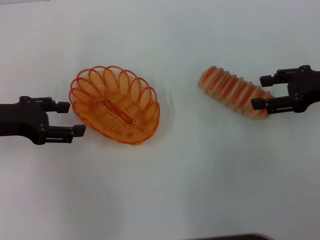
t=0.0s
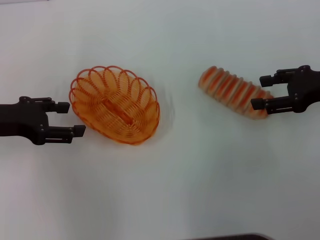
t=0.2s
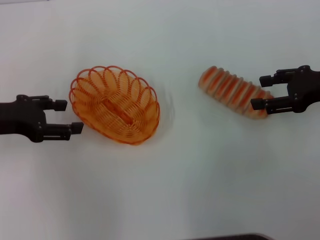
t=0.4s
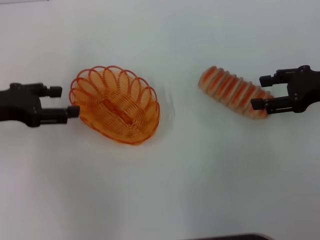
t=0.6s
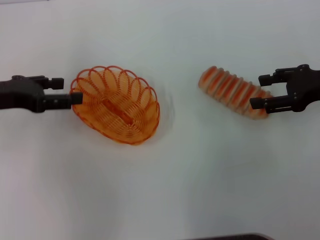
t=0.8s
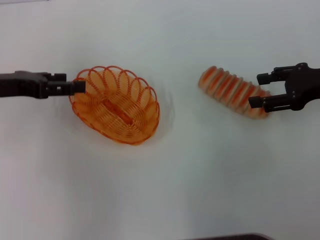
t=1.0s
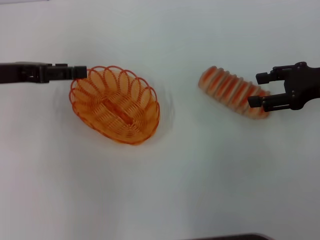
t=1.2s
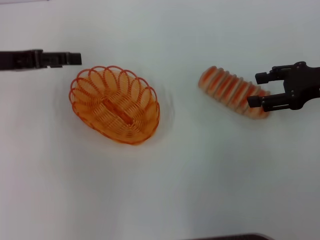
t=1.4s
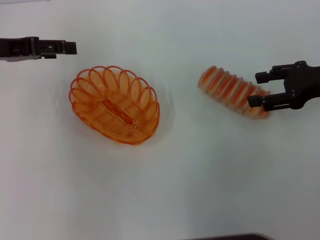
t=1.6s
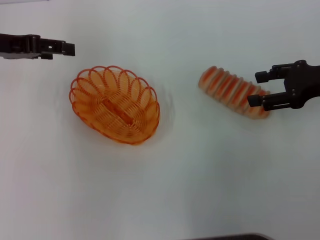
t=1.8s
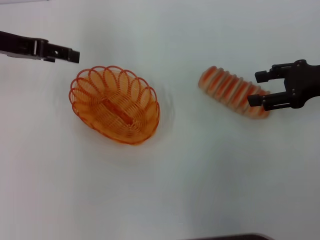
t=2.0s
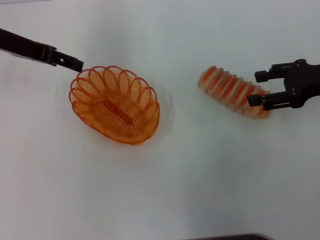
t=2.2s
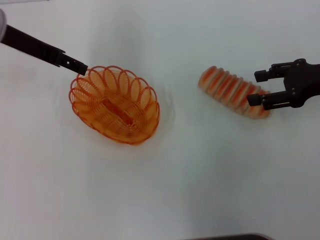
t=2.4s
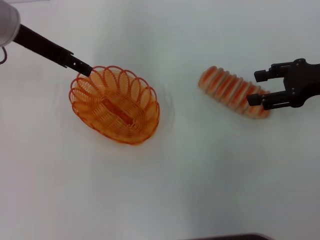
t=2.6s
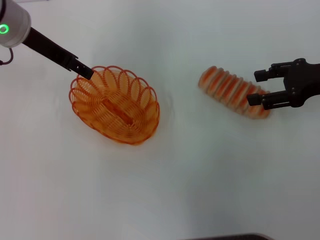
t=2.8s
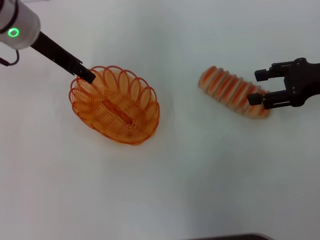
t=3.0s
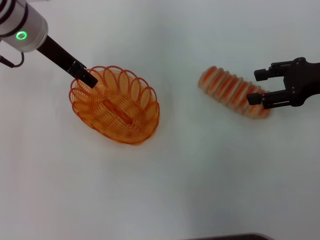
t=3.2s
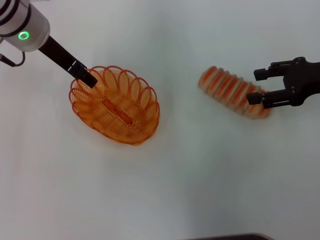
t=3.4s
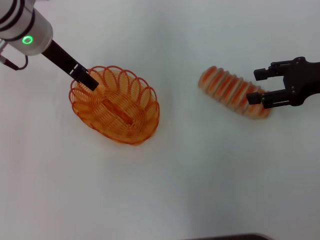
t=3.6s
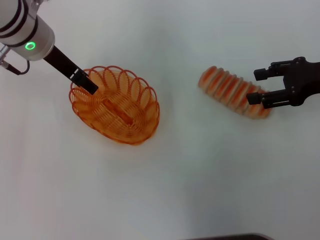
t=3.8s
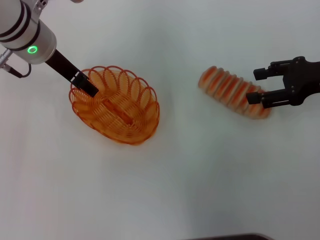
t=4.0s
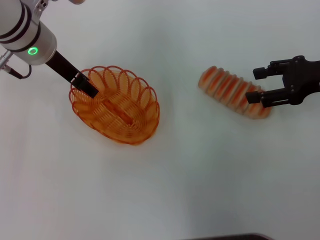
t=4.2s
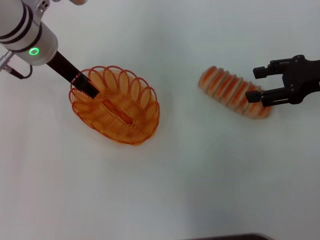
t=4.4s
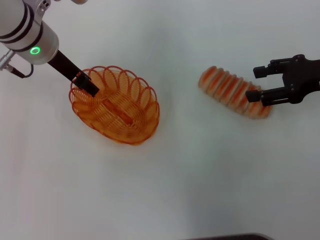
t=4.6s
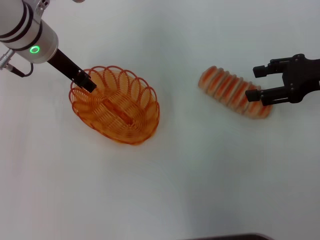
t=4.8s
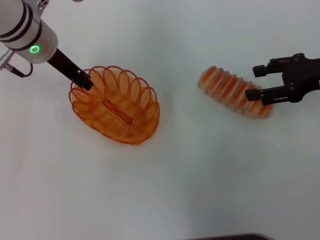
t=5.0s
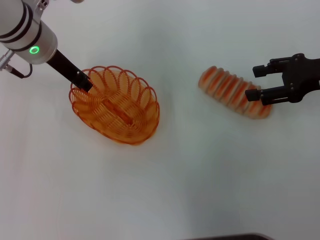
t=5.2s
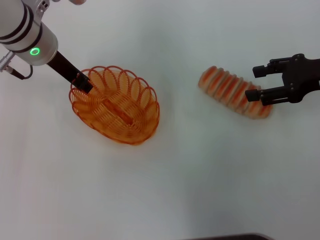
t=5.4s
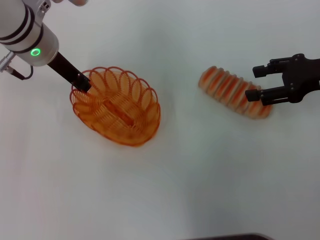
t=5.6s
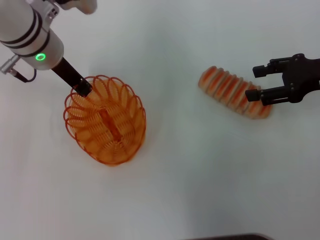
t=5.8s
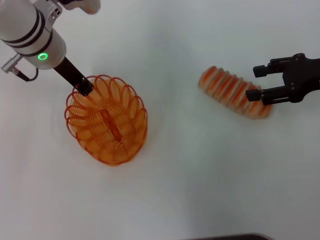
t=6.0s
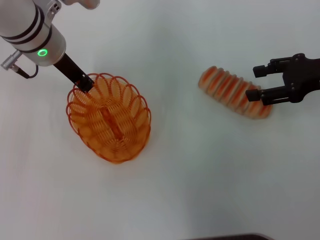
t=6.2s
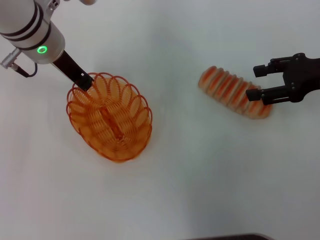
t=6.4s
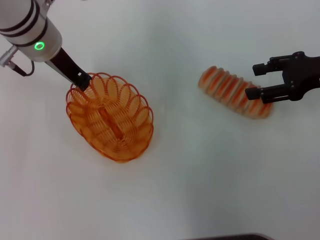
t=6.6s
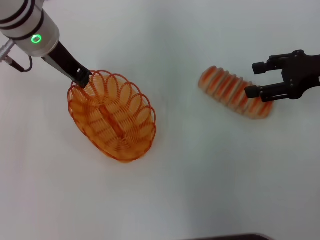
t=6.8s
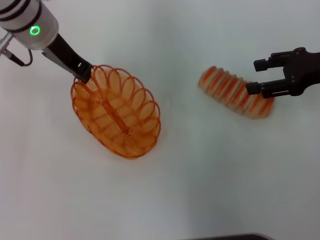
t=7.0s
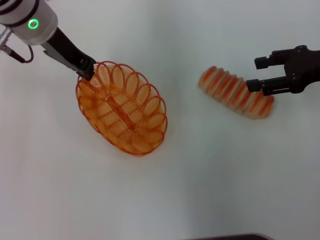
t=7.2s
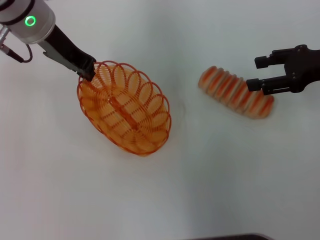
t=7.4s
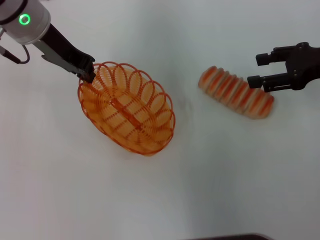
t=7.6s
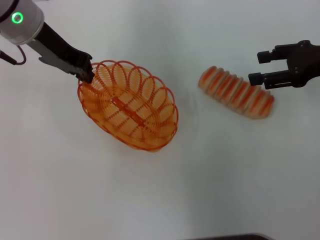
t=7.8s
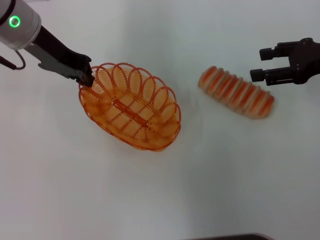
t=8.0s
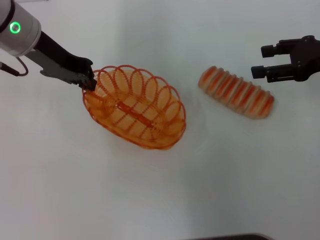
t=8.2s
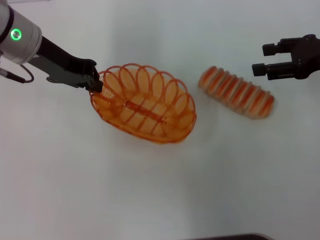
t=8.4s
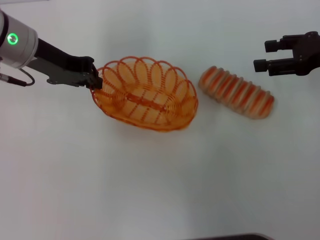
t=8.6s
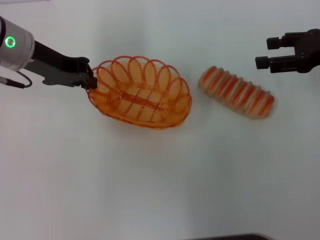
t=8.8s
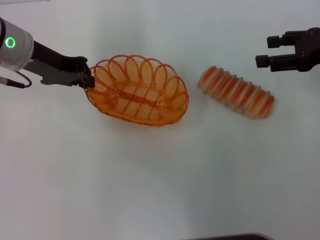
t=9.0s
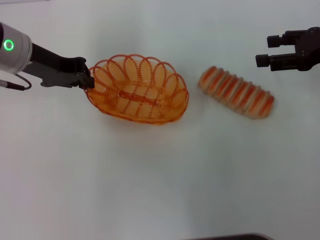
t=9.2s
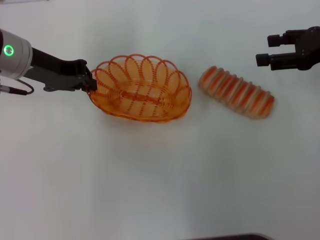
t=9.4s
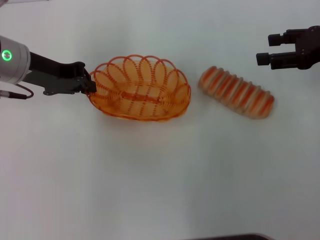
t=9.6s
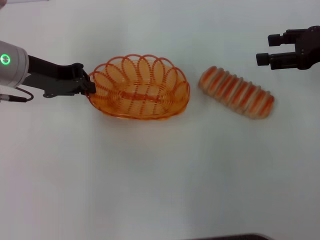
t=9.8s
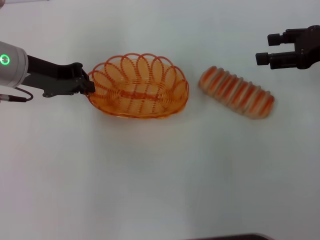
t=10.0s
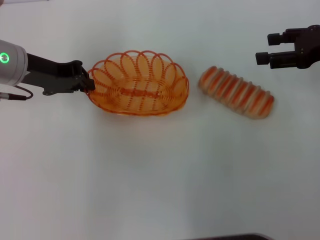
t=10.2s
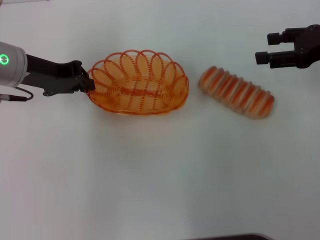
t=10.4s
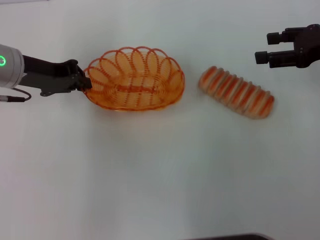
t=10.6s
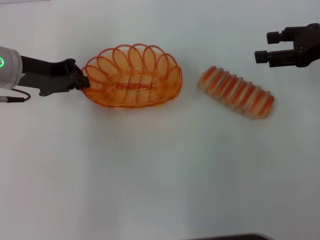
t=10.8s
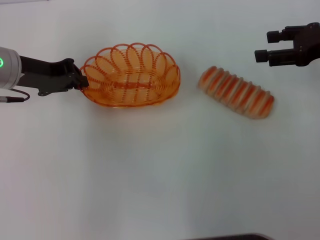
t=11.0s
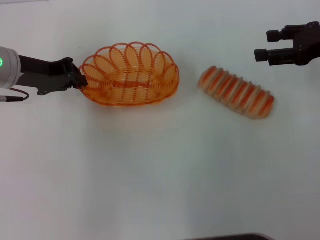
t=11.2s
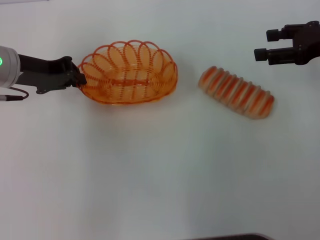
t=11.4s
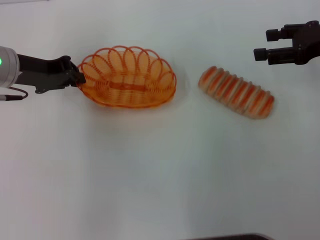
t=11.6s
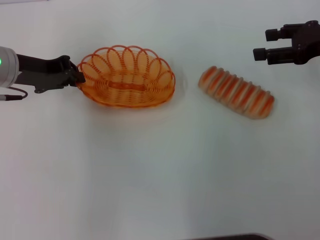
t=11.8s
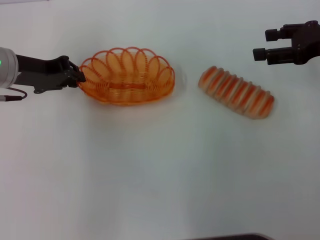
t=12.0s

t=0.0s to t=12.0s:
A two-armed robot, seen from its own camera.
Step, t=0.0s to t=8.0s: Pick up the basket with the left gripper.
t=0.0s to t=1.6s: The left gripper moves forward, some 5 cm.
t=1.6s to t=3.0s: The left gripper travels to the right by roughly 10 cm.
t=3.0s to t=4.4s: The grippers make only small movements.
t=4.4s to t=6.0s: The left gripper closes up.
t=6.0s to t=7.6s: The left gripper shifts approximately 5 cm upward.
t=7.6s to t=9.0s: The left gripper shifts by about 5 cm.
t=9.0s to t=12.0s: The grippers move only a little.

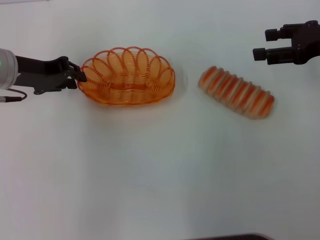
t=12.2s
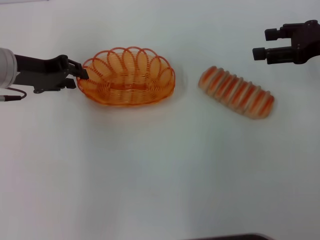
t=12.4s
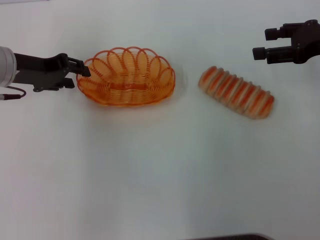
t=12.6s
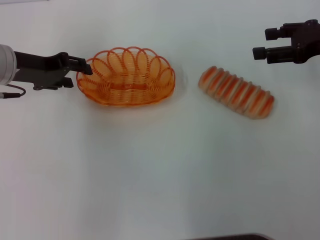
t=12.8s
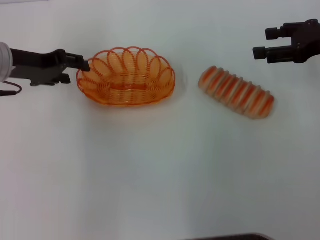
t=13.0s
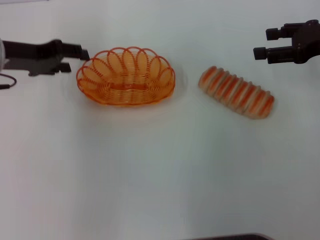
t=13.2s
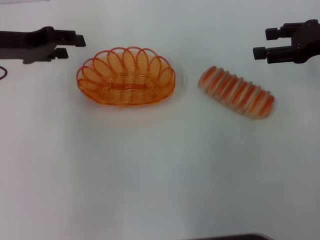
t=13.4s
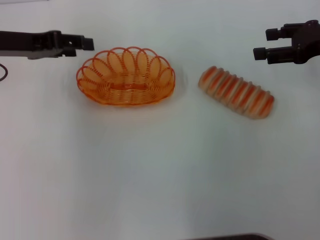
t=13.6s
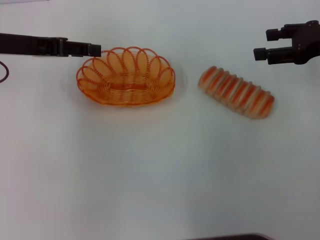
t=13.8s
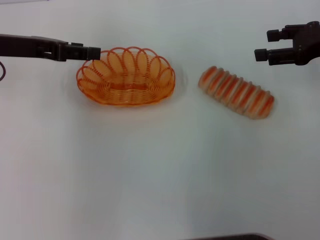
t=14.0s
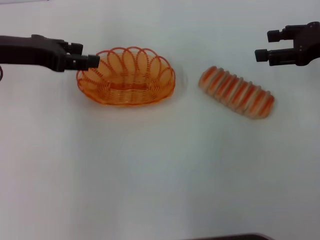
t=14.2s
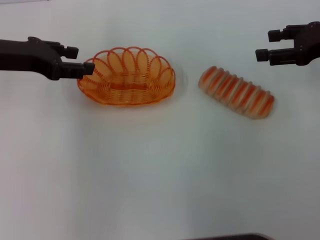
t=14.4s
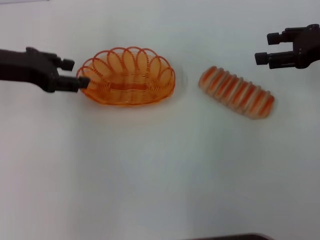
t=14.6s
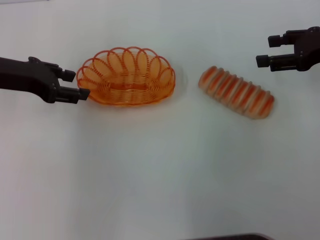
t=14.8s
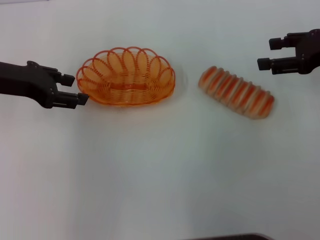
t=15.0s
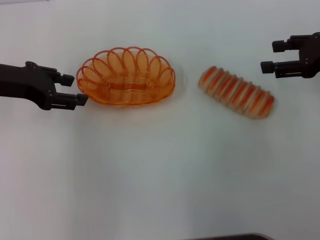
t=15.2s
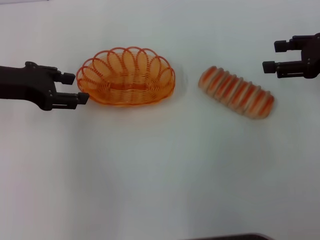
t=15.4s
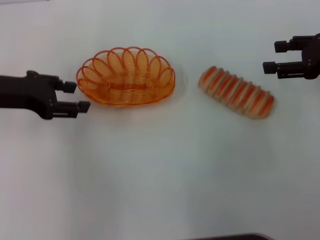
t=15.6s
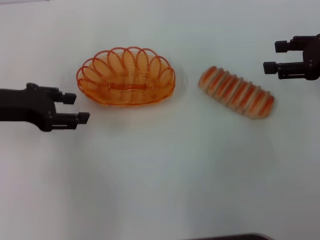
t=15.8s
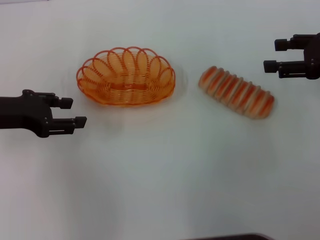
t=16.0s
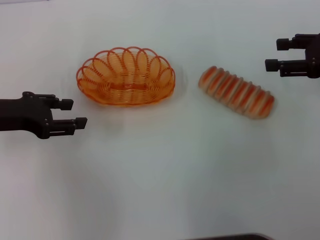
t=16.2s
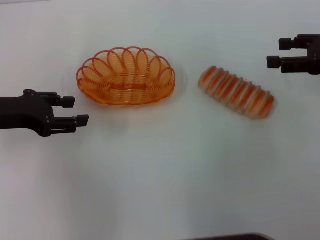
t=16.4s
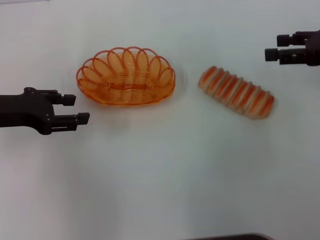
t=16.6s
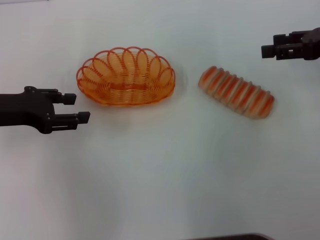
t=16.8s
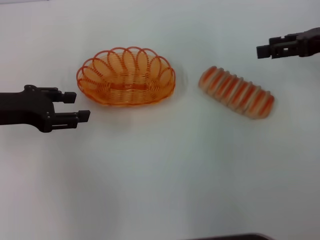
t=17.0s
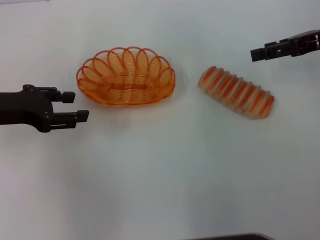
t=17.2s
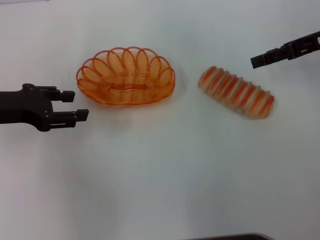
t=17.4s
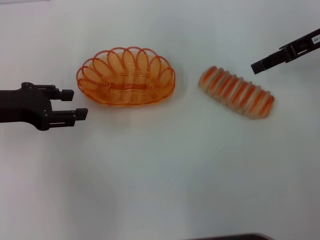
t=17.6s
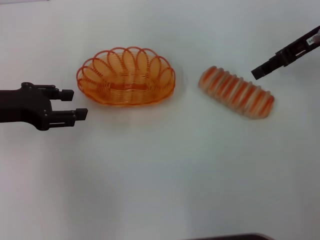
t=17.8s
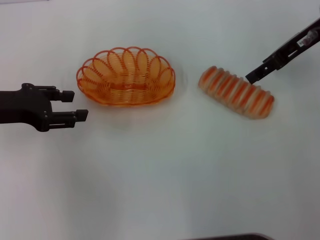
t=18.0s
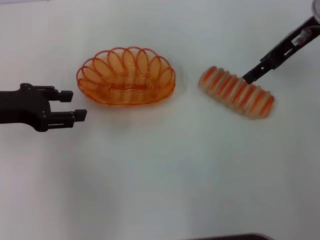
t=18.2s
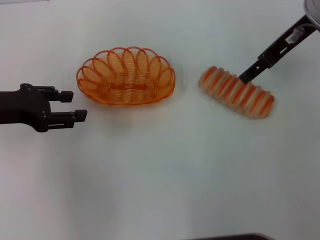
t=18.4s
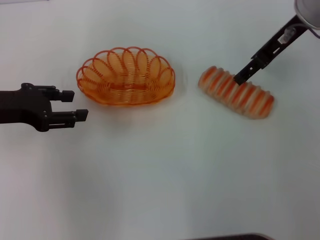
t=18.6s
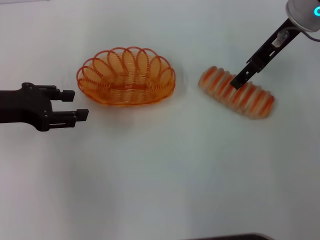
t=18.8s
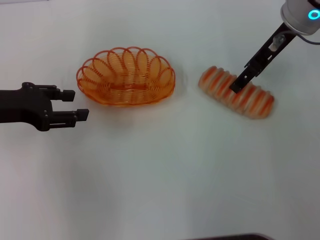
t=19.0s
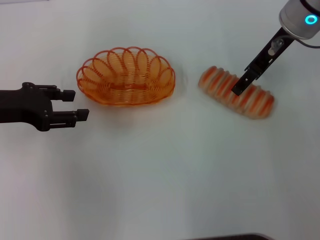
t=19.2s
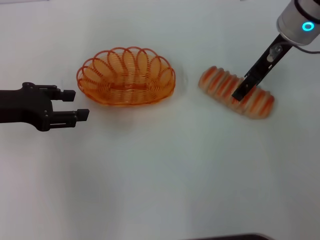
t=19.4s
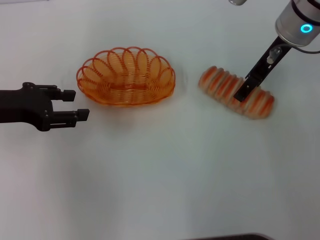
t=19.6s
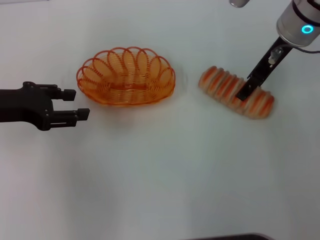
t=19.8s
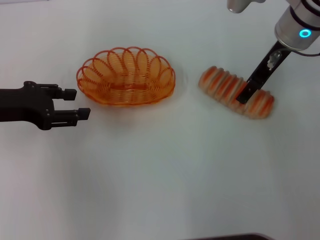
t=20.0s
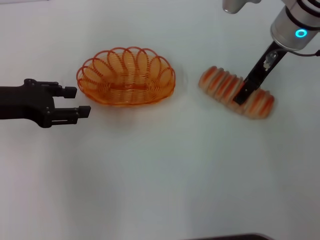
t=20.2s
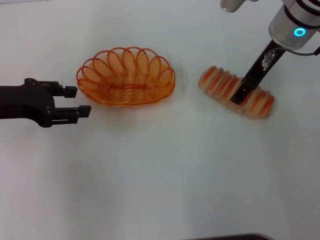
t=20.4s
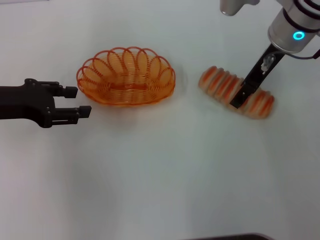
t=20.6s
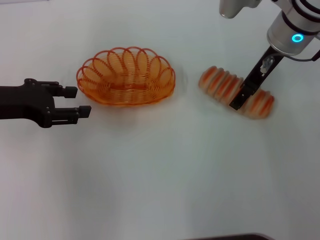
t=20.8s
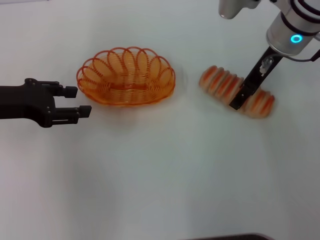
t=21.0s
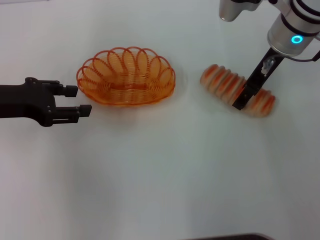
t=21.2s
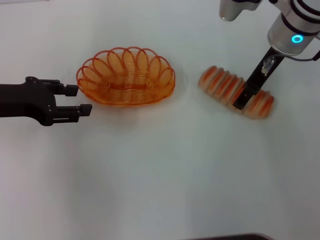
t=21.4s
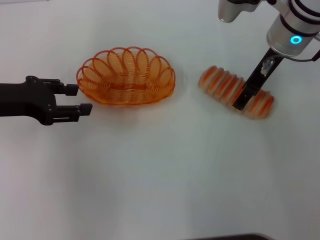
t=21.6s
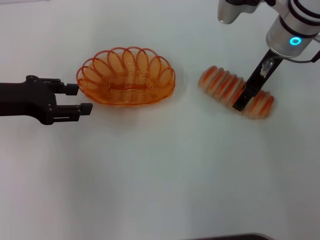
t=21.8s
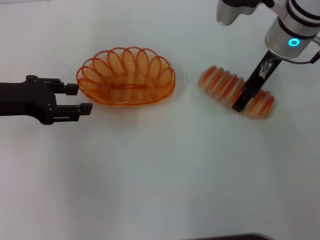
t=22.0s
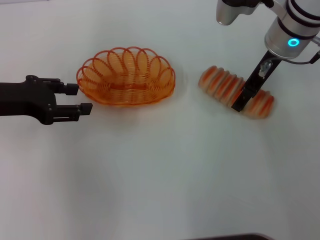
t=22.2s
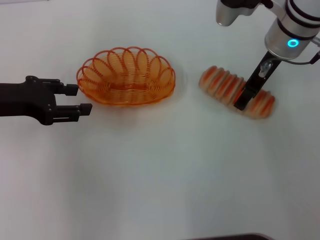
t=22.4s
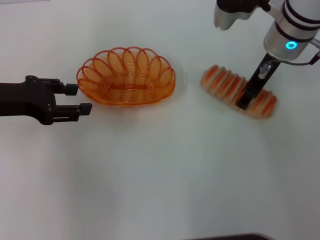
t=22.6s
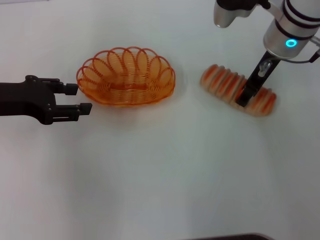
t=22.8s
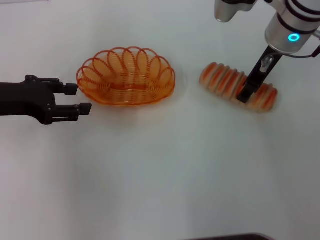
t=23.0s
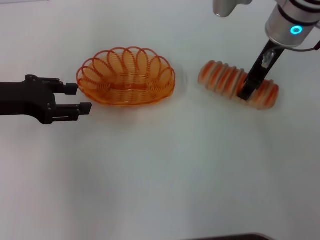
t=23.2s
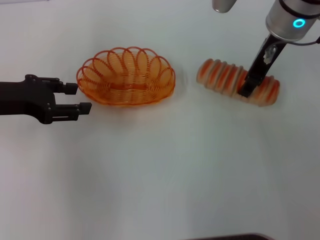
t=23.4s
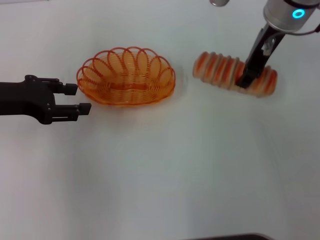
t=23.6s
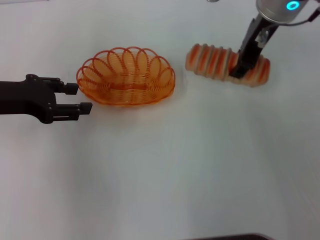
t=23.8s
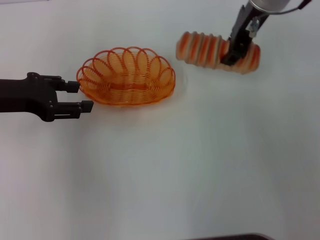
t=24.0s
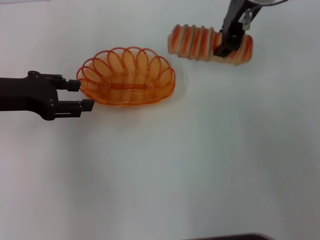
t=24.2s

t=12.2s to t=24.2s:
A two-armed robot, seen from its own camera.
Step, t=14.0s to t=23.6s: Pick up the long bread with the right gripper.
t=12.2s to t=13.8s: The left gripper opens its fingers.
t=15.2s to t=16.6s: The left gripper changes place by some 5 cm.
t=16.6s to t=18.2s: The right gripper is displaced to the left and forward by some 10 cm.
t=18.2s to t=19.8s: The right gripper moves some 5 cm.
t=19.8s to t=21.2s: The grippers stay close to where they were, moving slightly.
t=21.2s to t=22.6s: Both grippers stay about where they are.
t=22.6s to t=24.2s: The right gripper heads upward, covering some 10 cm, and closes up.
